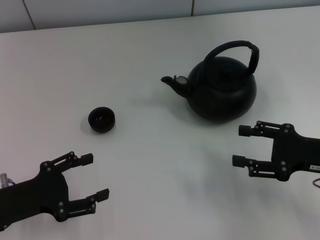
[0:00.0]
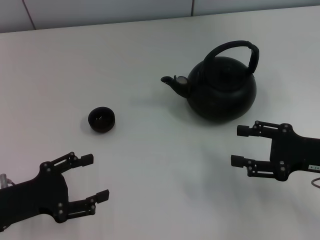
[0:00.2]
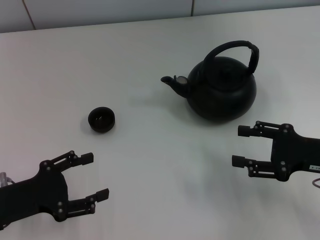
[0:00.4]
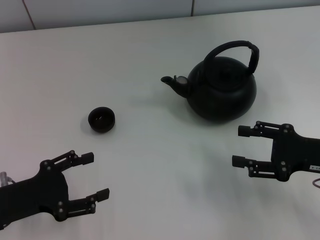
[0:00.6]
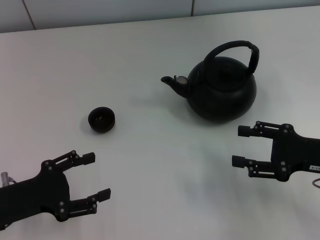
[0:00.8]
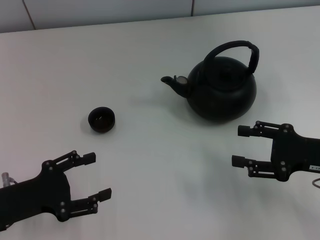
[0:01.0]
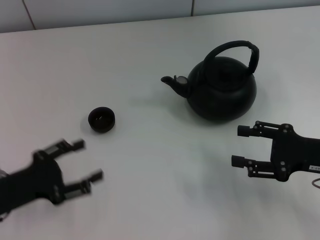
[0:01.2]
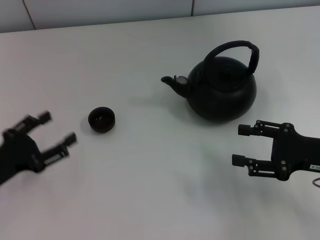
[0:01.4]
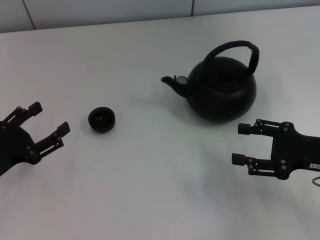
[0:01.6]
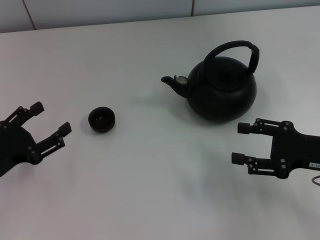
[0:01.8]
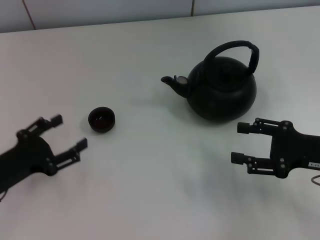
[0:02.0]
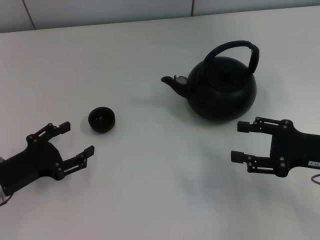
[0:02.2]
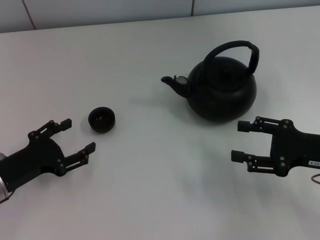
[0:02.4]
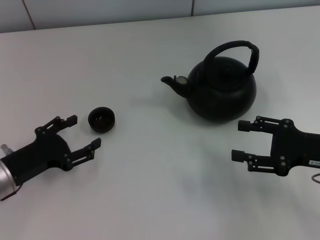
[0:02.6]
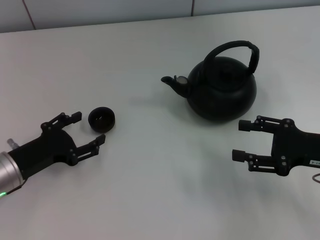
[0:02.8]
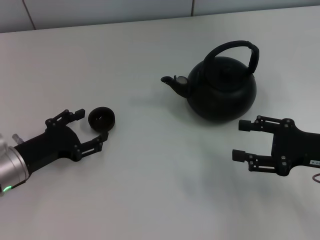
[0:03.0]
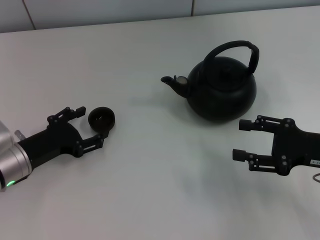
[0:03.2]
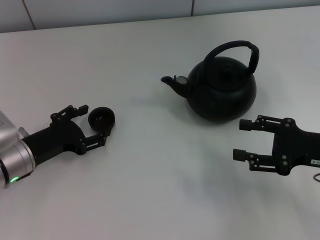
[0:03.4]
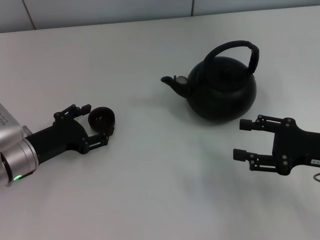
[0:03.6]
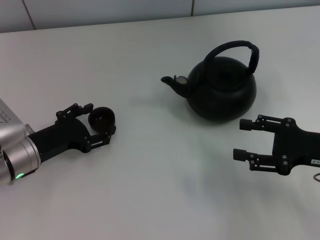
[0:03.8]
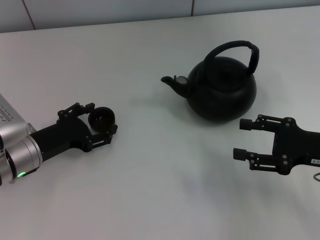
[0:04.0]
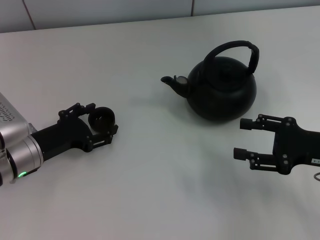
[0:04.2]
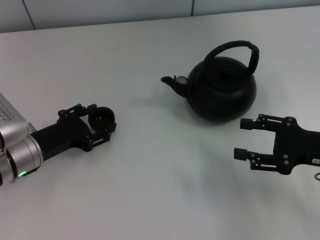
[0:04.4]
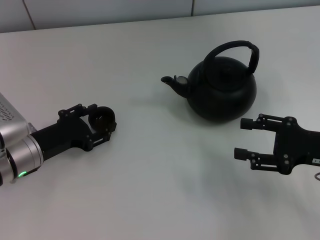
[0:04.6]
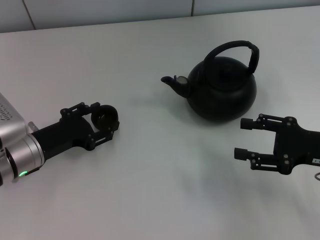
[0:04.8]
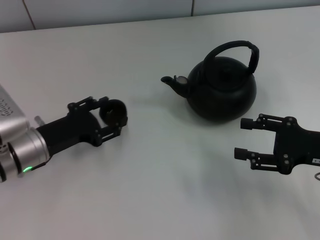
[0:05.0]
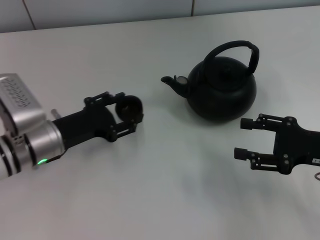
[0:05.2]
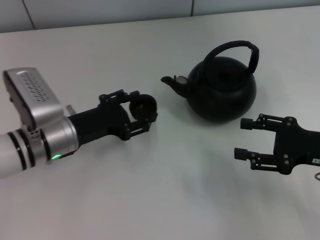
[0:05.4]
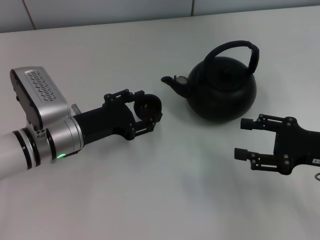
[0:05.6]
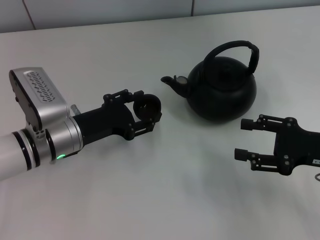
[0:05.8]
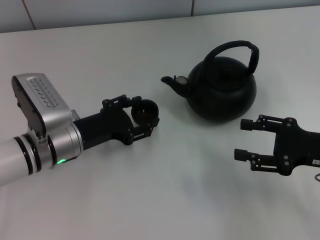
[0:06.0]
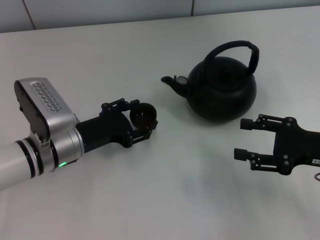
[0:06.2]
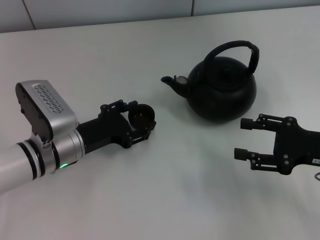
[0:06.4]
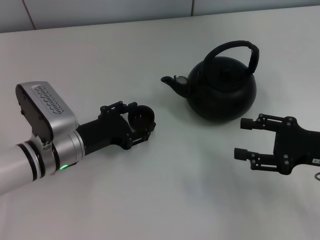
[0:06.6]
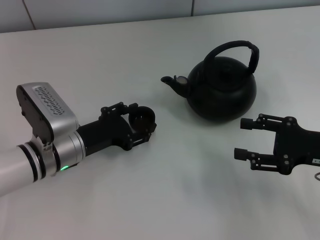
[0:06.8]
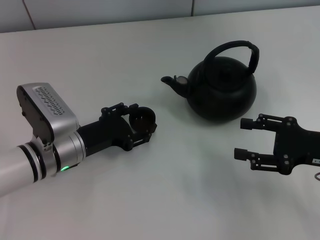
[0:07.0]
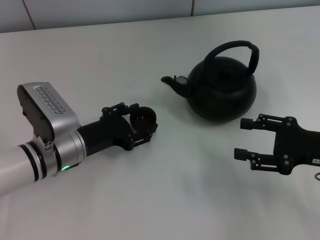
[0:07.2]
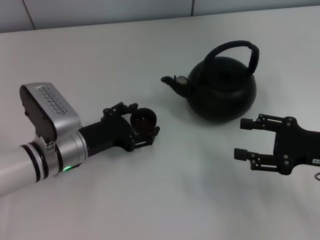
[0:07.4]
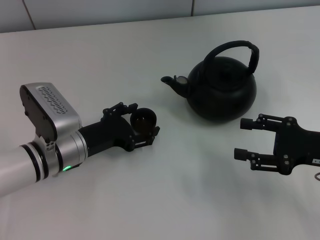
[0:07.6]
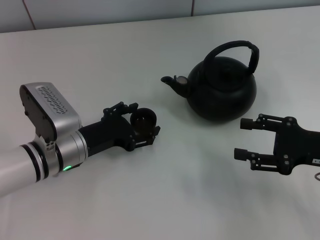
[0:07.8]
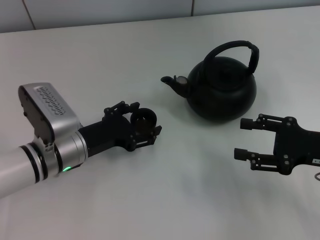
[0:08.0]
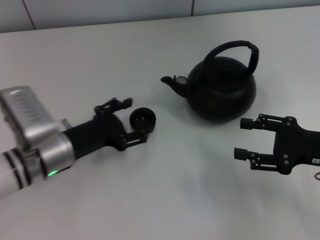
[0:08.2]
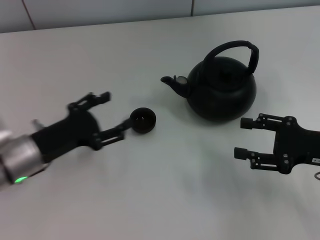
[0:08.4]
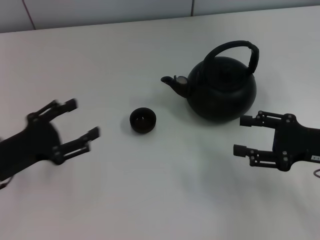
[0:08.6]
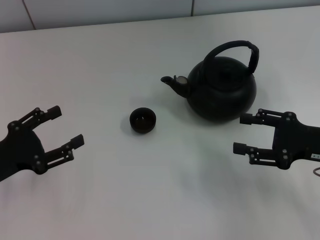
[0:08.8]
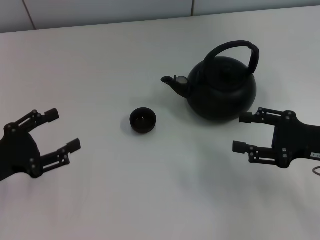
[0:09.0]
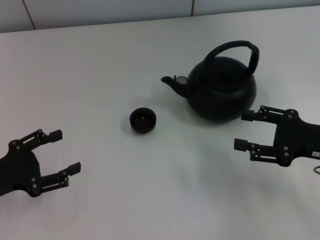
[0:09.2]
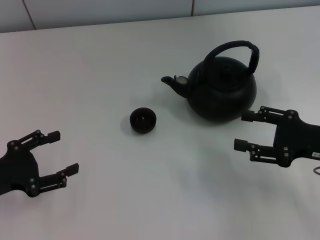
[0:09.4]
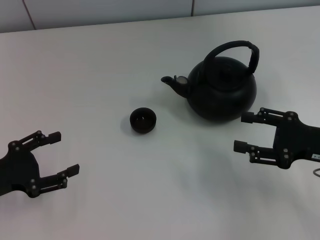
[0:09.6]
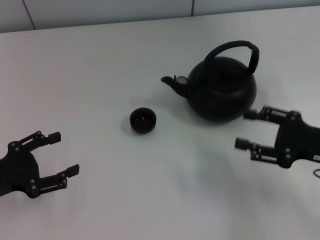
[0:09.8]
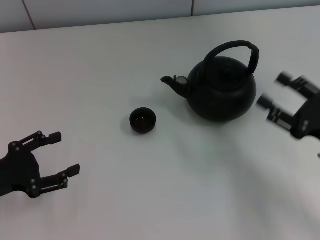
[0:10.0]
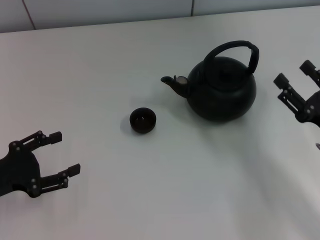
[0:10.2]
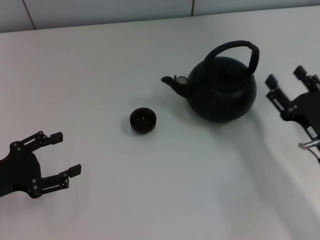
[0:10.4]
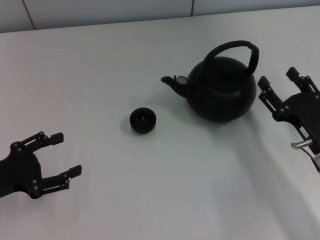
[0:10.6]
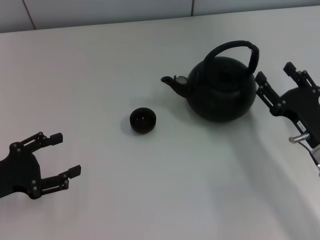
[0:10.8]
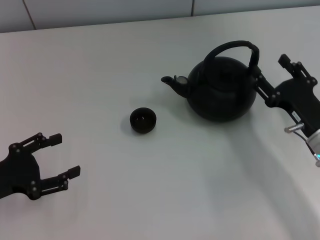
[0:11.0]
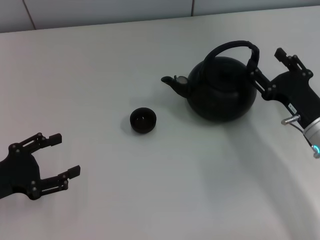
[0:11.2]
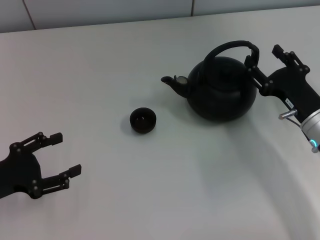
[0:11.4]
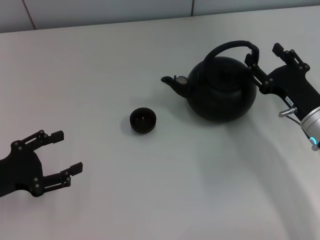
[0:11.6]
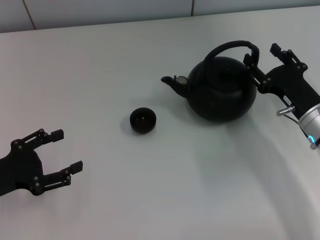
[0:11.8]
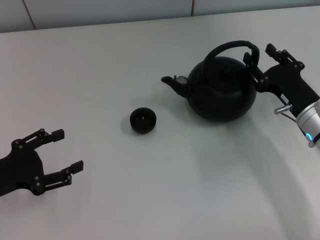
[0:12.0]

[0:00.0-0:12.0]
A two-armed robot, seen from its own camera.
Task of the whole recording: Grasp the handle of the teapot with one hand and pour tea into the teacup.
Step, 0:00.0 to 0:04.8: Pick up the teacup with the left gripper.
Step, 0:05.0 to 0:08.4: Place the teacup in the center of view with the left gripper.
0:01.6 to 0:03.0: The left gripper changes place by approximately 5 cm.
0:03.0 to 0:04.4: There are only small adjustments of the grippers.
0:04.4 to 0:06.0: The left gripper travels to the right by about 5 cm, and closes.
0:06.0 to 0:07.6: The left gripper opens.
0:07.6 to 0:09.0: The left gripper shifts about 15 cm to the left and backward.
0:09.0 to 0:10.4: The right gripper heads downward, covering approximately 5 cm.
0:10.4 to 0:12.0: The right gripper is displaced forward by approximately 5 cm.

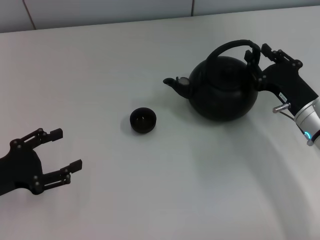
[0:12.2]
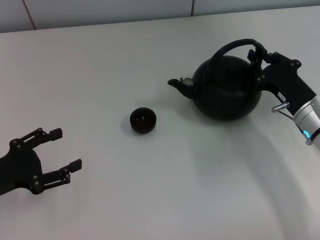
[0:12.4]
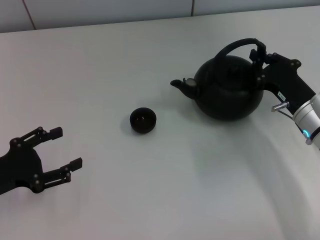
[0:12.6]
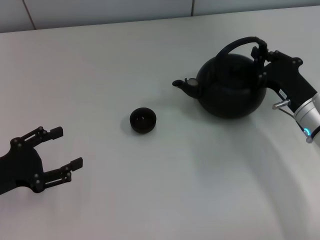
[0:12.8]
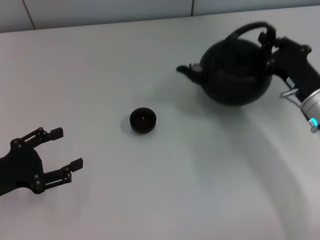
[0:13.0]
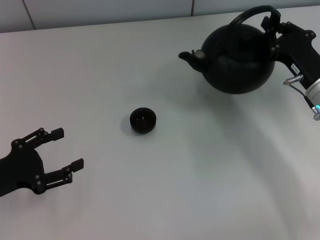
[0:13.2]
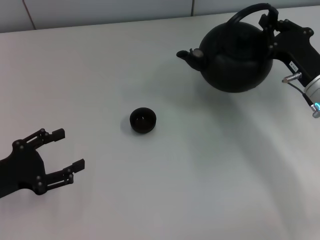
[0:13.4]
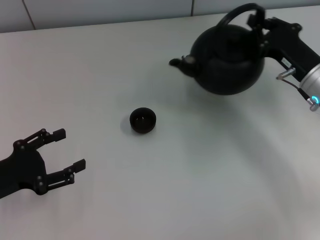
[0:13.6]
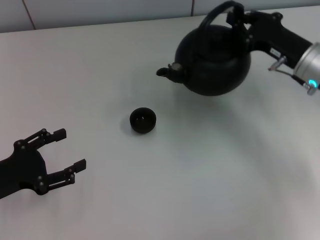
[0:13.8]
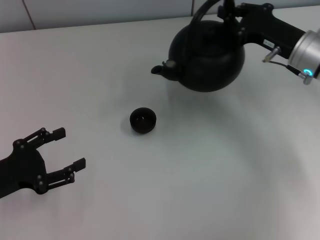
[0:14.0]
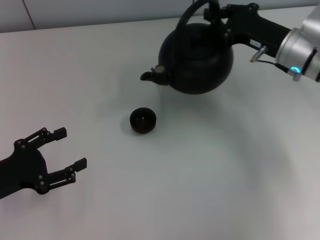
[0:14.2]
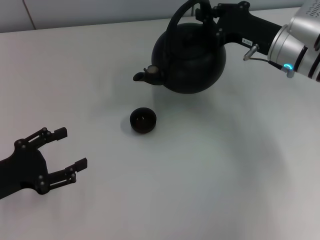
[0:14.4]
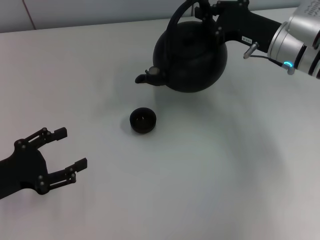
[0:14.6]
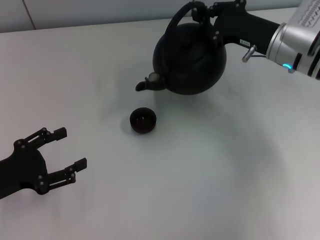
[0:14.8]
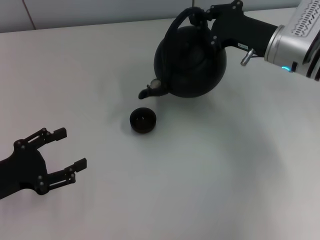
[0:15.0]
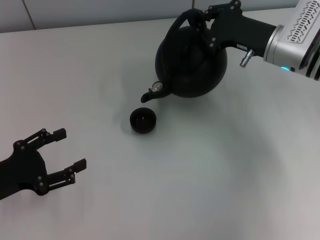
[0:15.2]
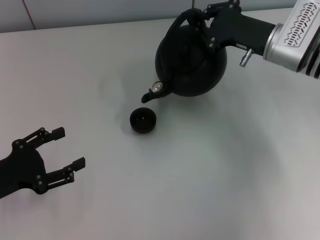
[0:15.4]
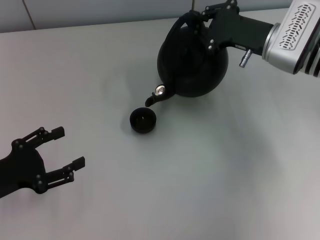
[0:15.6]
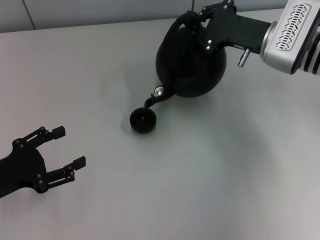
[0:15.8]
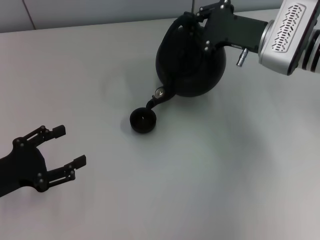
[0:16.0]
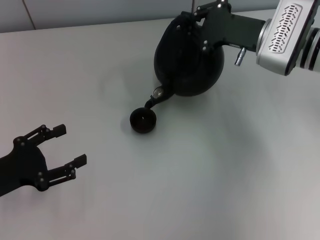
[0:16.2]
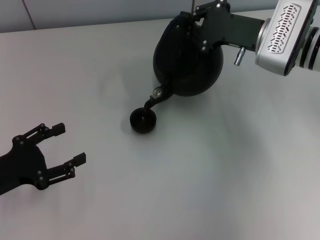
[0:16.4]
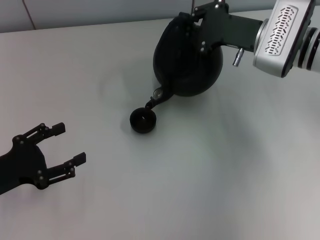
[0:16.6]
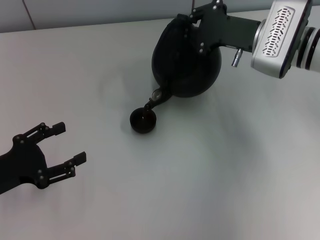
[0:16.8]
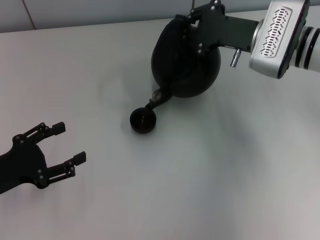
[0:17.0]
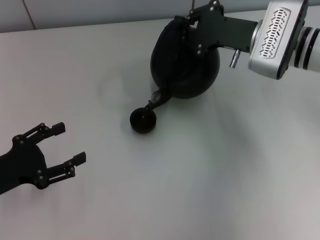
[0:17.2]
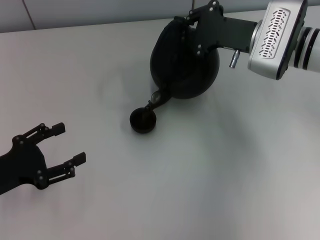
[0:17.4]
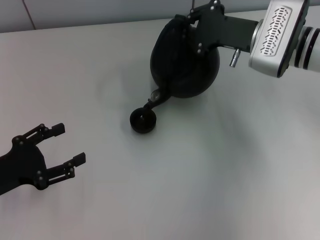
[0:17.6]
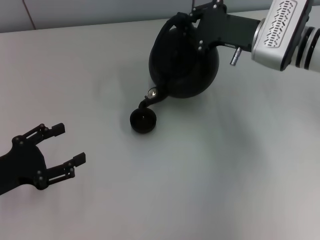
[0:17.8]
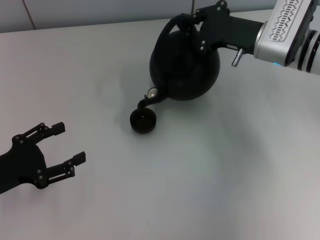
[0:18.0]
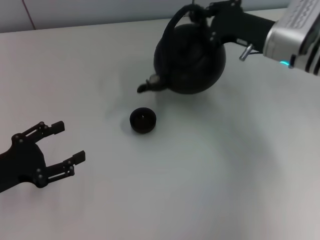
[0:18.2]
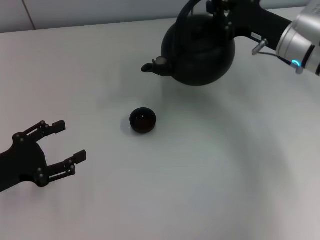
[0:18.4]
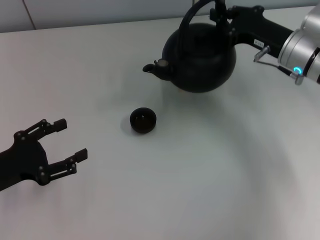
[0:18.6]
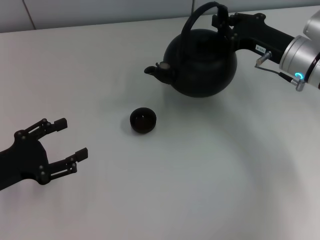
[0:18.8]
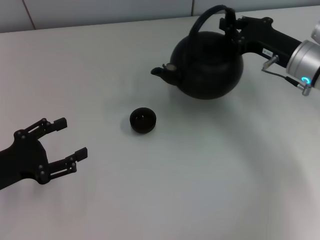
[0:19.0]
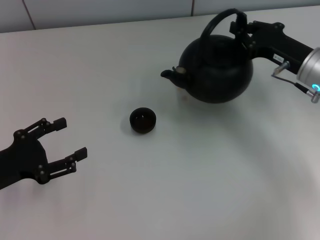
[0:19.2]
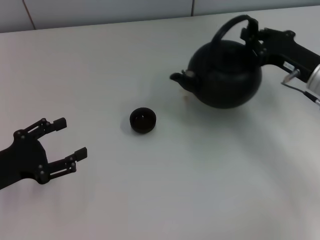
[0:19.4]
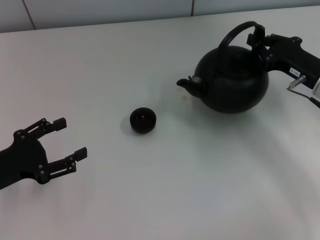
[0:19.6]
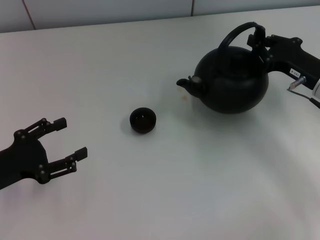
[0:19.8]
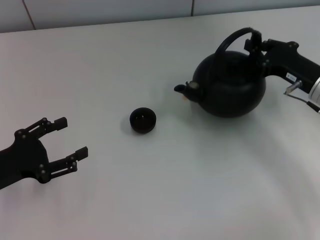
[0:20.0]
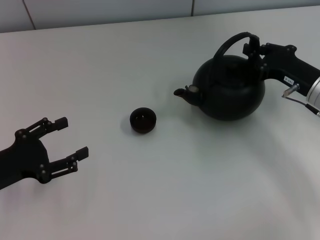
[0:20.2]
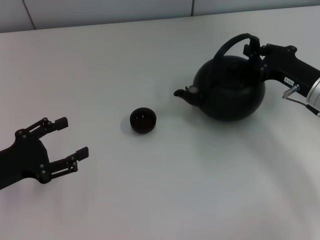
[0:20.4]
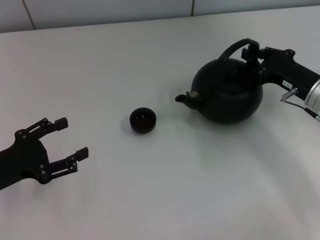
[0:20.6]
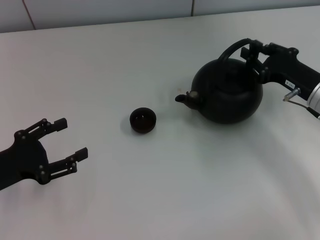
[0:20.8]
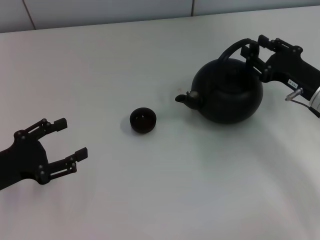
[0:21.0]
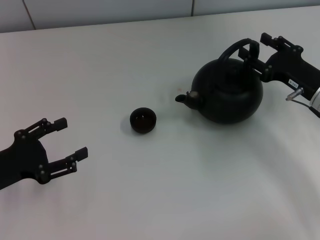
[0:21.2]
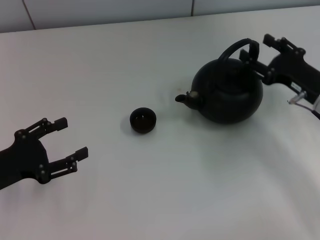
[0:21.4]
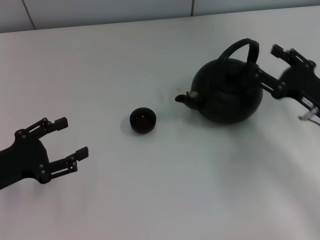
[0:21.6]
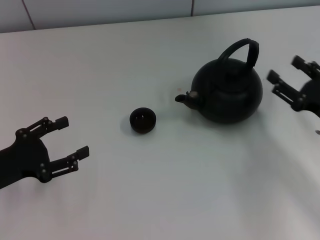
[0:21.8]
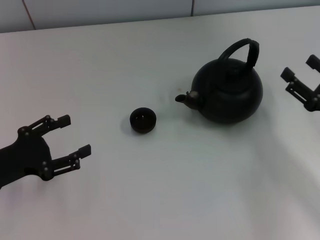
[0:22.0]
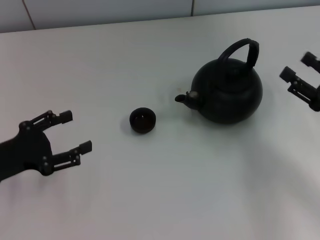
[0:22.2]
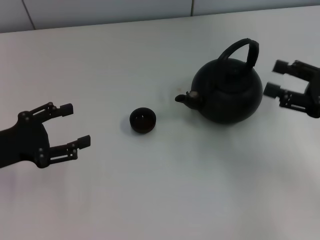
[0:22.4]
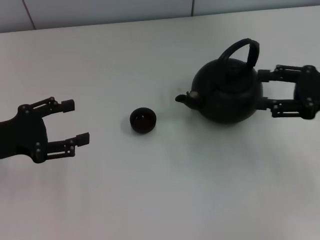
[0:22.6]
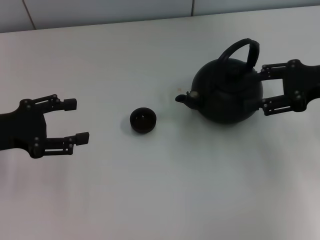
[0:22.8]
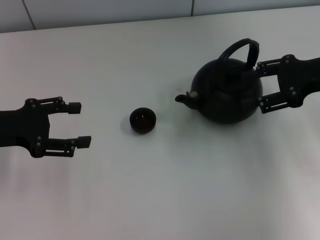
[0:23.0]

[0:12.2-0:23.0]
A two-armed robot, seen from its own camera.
Task of the whole recording: Grasp the handle of the teapot with one hand and pour tea into the teacup.
Step, 0:18.6 to 0:21.4: Put down the teapot with the right gripper.
0:12.2 to 0:13.8: The right gripper heads forward and upward, covering approximately 10 cm, and closes its fingers.
0:13.8 to 0:15.2: The right gripper moves about 5 cm.
0:15.2 to 0:16.8: The grippers make only small movements.
0:18.4 to 0:20.0: The right gripper shifts some 5 cm backward.
0:20.0 to 0:21.4: The right gripper opens its fingers.
0:21.4 to 0:23.0: The right gripper shifts some 10 cm upward, while the left gripper travels forward and upward by approximately 10 cm.
